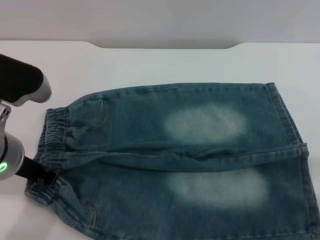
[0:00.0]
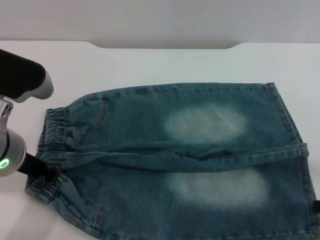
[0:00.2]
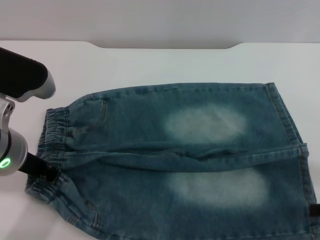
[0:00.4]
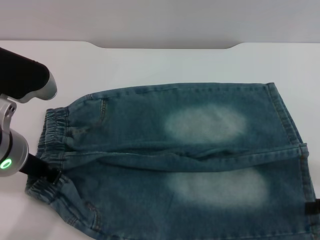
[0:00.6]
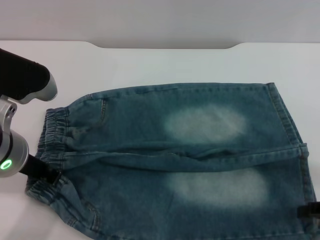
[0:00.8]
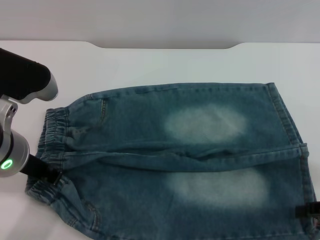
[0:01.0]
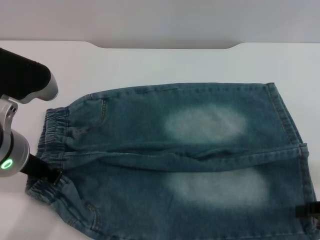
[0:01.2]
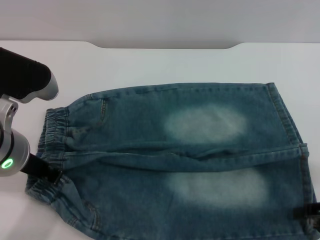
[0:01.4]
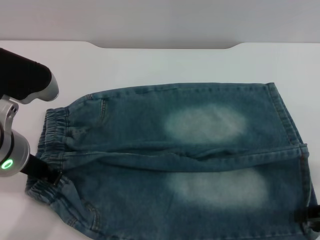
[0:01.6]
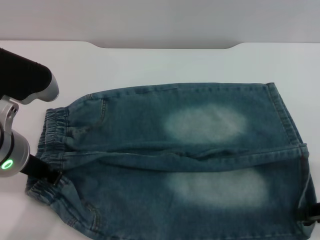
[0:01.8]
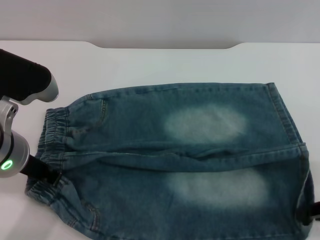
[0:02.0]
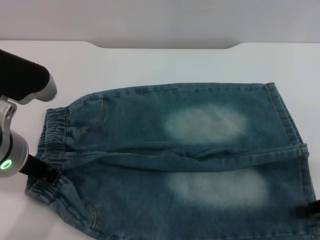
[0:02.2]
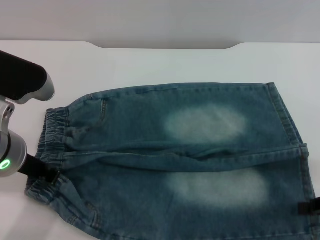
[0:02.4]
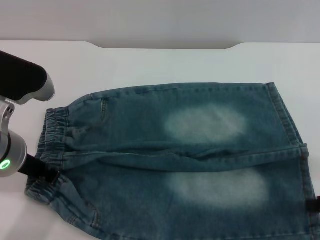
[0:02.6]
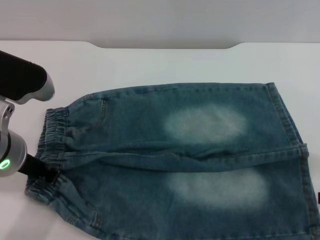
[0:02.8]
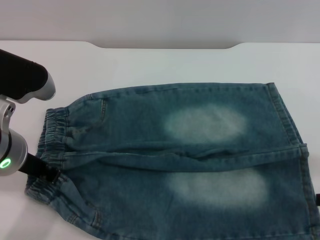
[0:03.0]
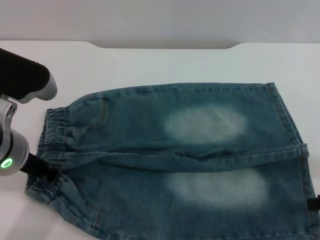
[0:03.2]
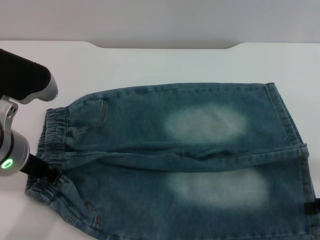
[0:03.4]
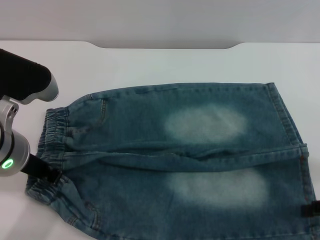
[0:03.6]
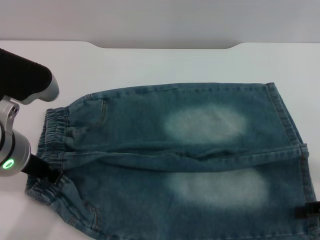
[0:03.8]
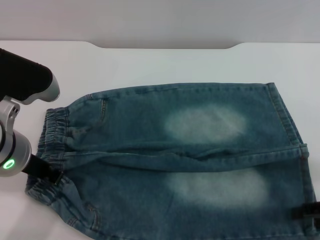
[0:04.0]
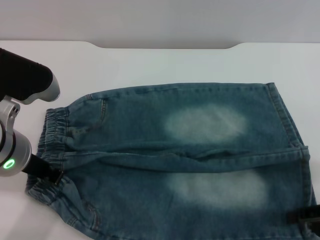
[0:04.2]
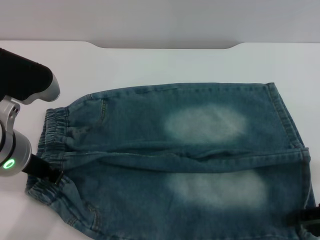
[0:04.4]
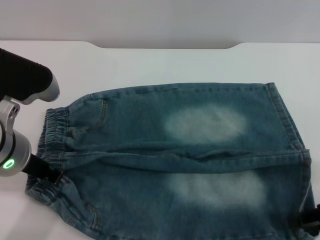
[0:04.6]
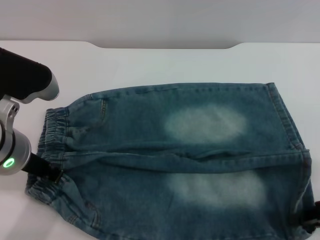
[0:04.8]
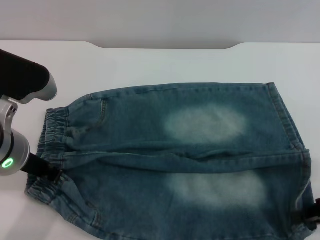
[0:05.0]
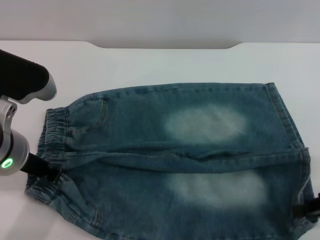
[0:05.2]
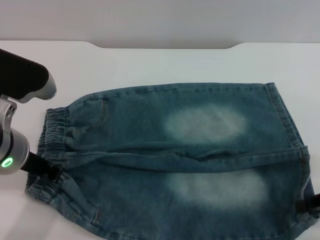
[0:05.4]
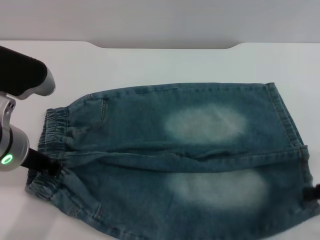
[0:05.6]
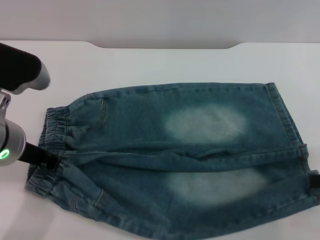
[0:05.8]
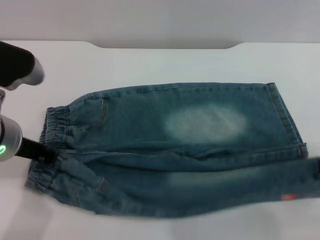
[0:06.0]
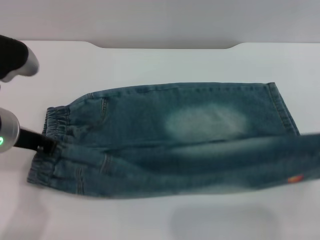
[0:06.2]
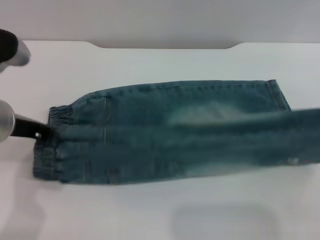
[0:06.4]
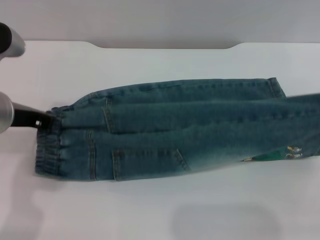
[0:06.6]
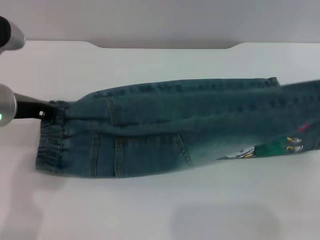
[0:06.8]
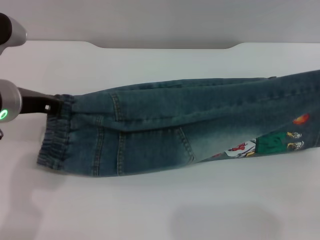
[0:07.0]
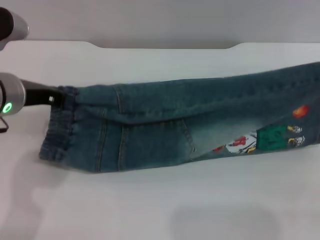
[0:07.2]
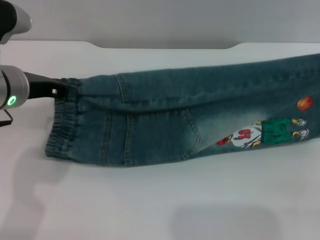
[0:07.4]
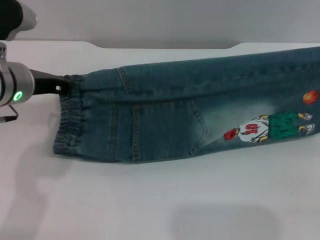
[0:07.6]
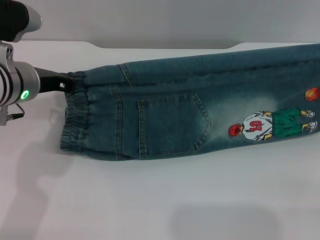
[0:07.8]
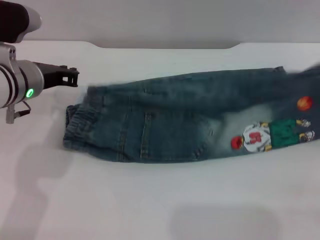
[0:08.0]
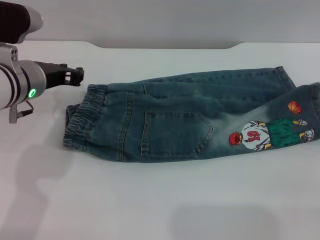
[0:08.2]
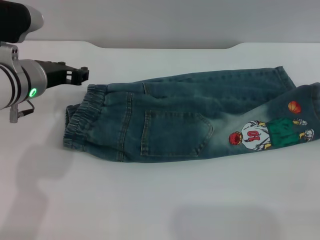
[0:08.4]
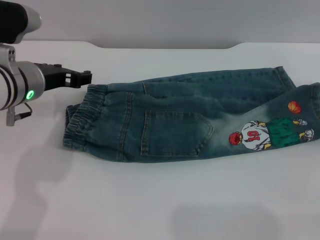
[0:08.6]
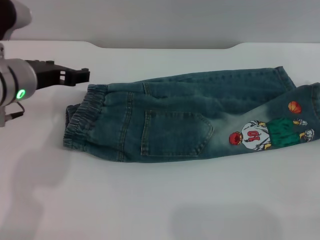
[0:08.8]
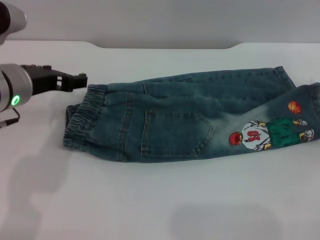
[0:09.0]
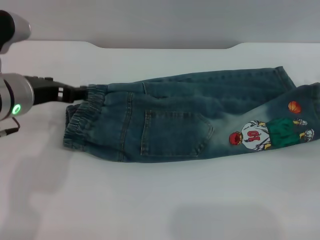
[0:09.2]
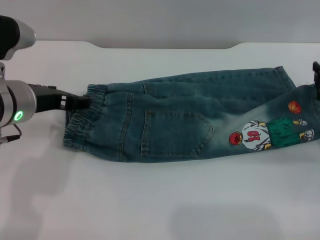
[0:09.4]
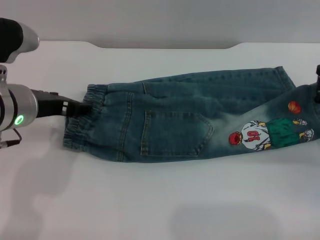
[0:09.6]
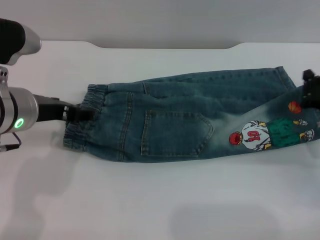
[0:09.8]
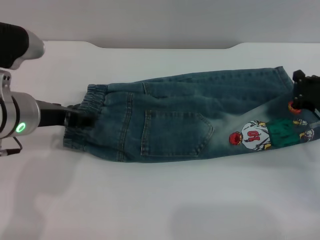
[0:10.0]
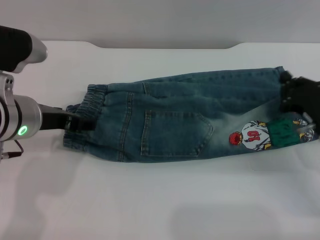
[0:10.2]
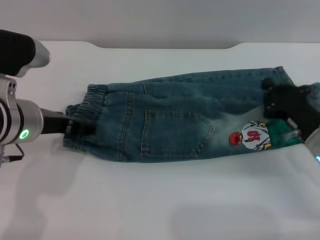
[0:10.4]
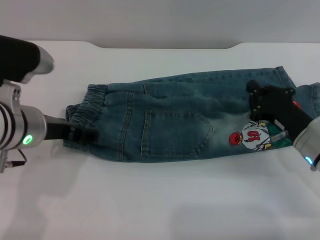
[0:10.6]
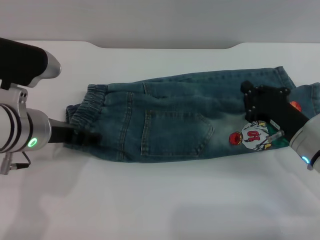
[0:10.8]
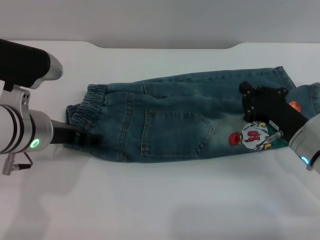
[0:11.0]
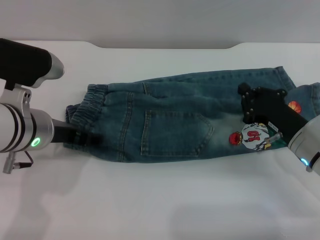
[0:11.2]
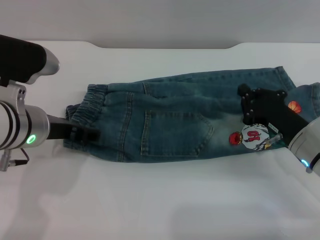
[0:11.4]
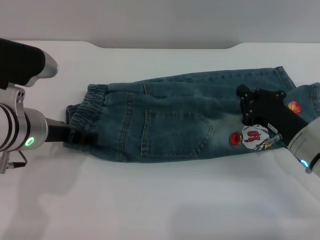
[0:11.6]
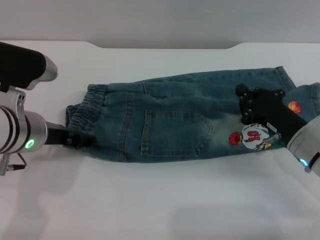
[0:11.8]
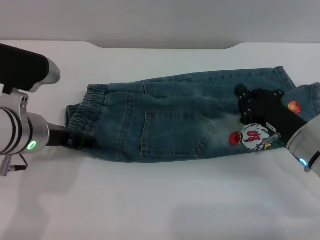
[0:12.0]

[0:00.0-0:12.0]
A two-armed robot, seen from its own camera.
Step, 0:00.0 to 0:08.4: Fold the bottom of the pants upward with both grippers.
0:00.0 to 0:01.6: The grippers move only a little.
0:01.6 to 0:03.0: The right gripper closes its fingers.
0:03.0 to 0:04.4: The right gripper opens.
0:04.4 to 0:06.0: The right gripper goes about 5 cm upward, and closes.
0:06.0 to 0:07.6: Both grippers move forward, roughly 5 cm.
0:07.6 to 0:09.0: The right gripper shifts about 5 cm downward, and opens its fingers. The left gripper opens its fingers.
0:09.0 to 0:10.4: The right gripper heads to the left and downward, covering some 15 cm, and closes up.
0:10.4 to 0:12.0: The grippers stay close to where they were, moving slightly.

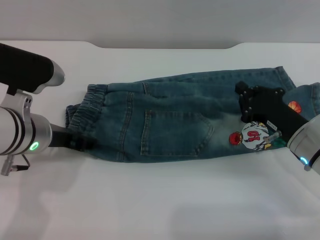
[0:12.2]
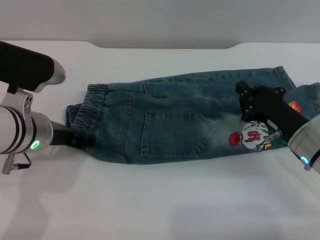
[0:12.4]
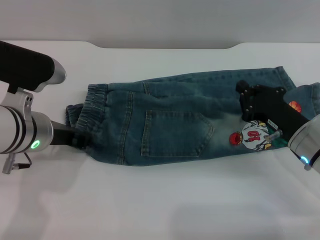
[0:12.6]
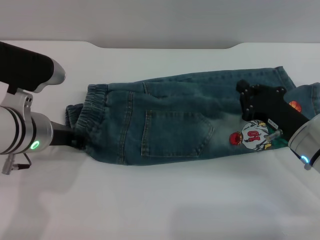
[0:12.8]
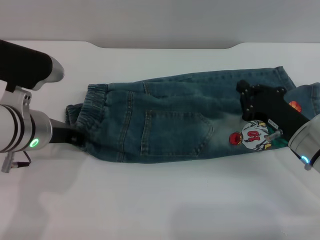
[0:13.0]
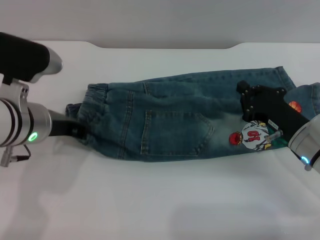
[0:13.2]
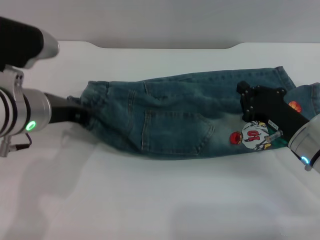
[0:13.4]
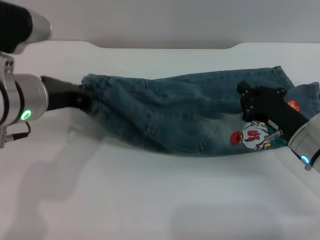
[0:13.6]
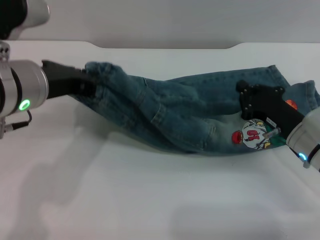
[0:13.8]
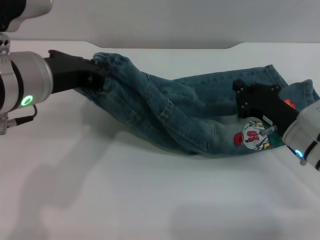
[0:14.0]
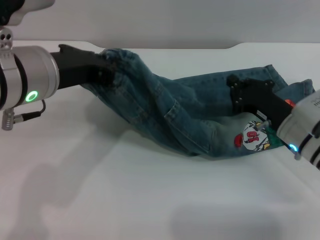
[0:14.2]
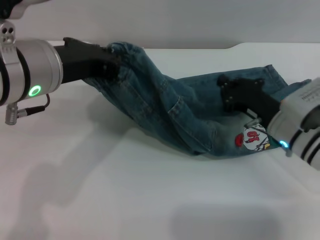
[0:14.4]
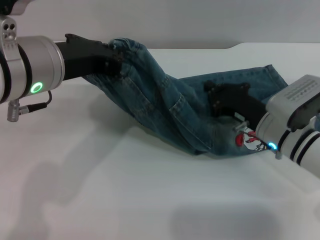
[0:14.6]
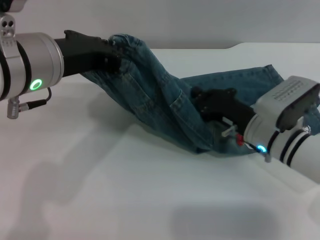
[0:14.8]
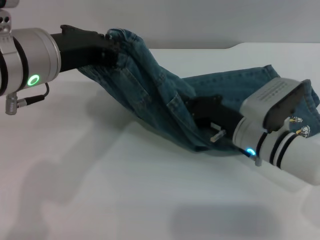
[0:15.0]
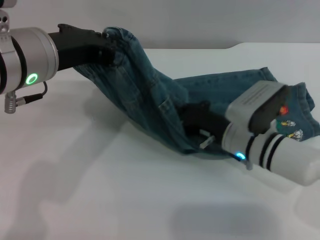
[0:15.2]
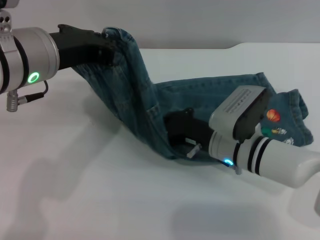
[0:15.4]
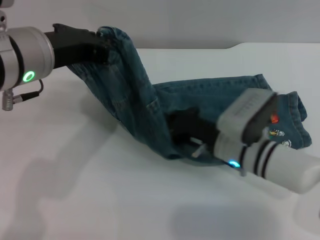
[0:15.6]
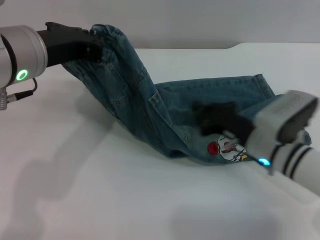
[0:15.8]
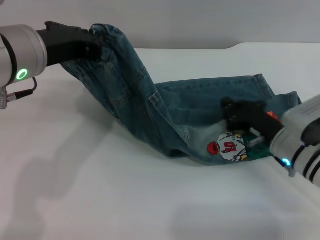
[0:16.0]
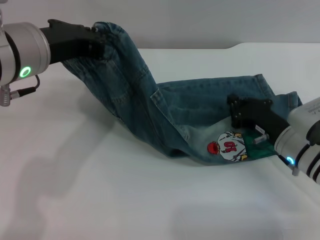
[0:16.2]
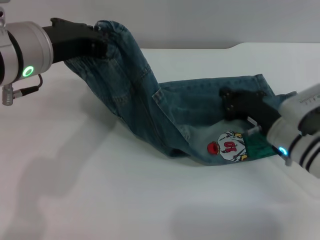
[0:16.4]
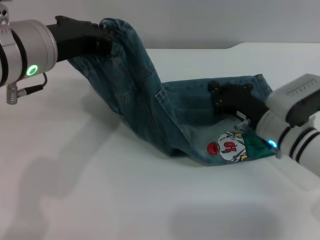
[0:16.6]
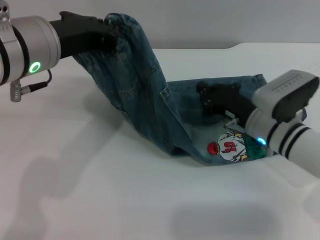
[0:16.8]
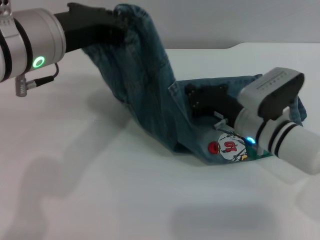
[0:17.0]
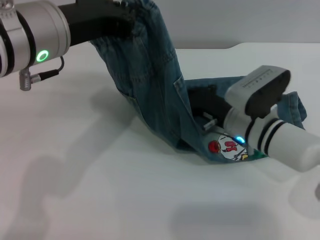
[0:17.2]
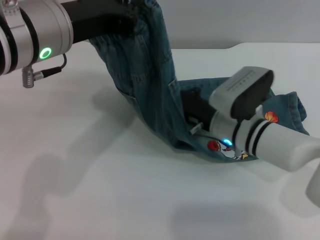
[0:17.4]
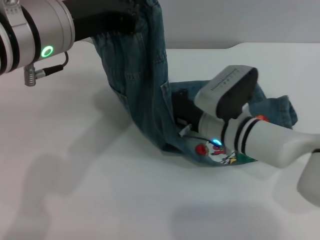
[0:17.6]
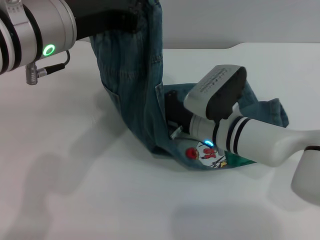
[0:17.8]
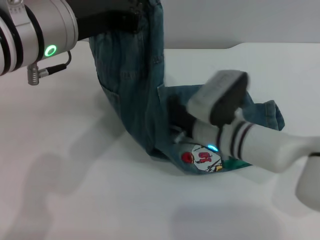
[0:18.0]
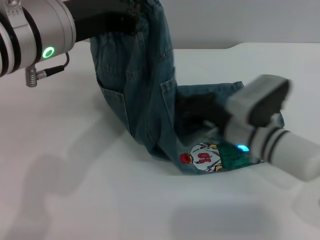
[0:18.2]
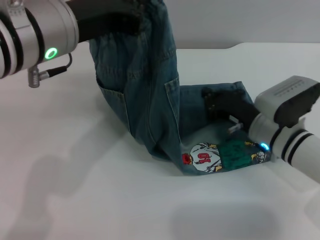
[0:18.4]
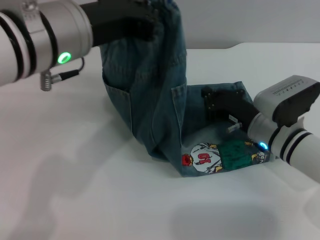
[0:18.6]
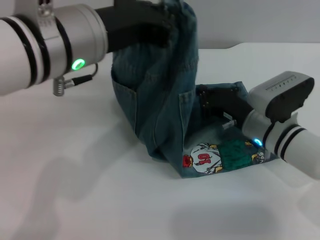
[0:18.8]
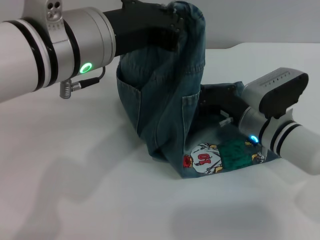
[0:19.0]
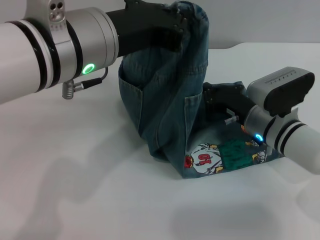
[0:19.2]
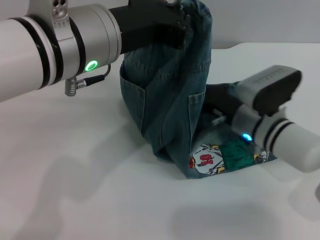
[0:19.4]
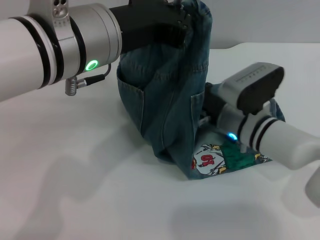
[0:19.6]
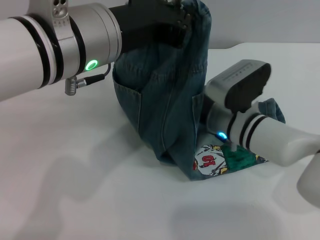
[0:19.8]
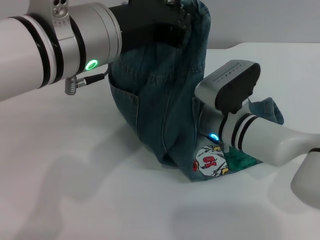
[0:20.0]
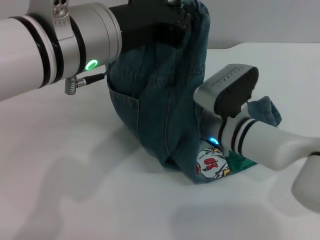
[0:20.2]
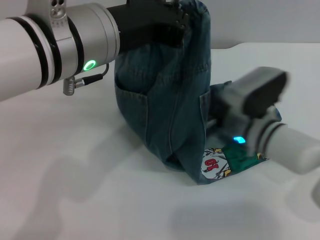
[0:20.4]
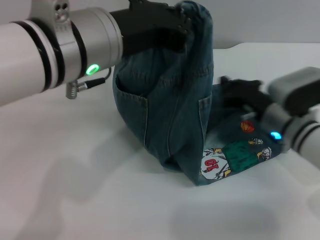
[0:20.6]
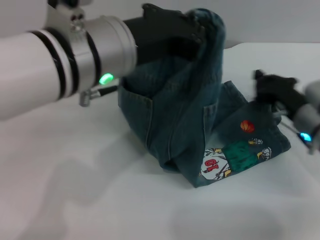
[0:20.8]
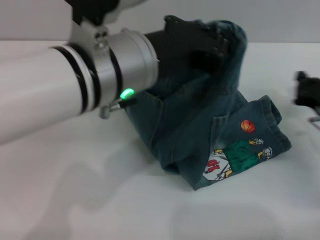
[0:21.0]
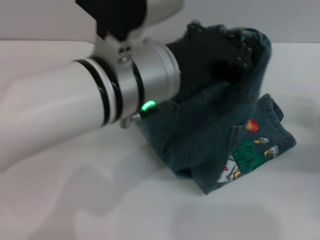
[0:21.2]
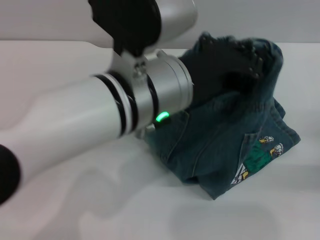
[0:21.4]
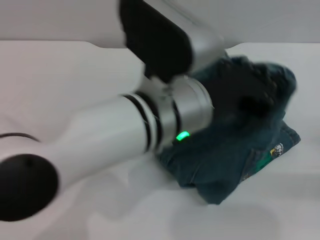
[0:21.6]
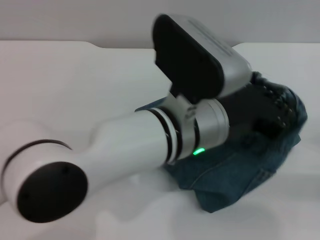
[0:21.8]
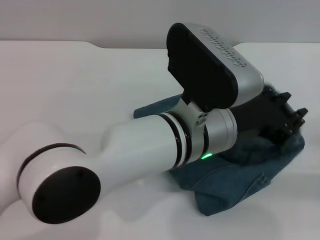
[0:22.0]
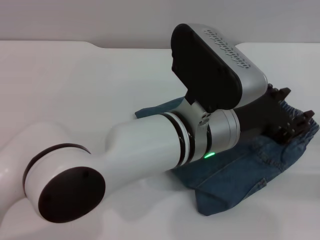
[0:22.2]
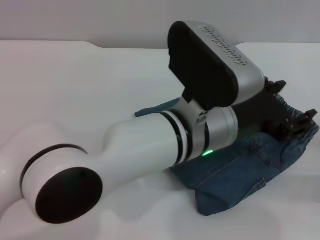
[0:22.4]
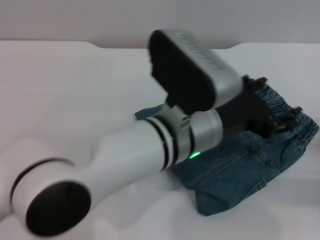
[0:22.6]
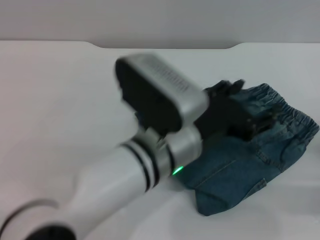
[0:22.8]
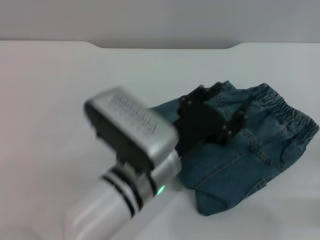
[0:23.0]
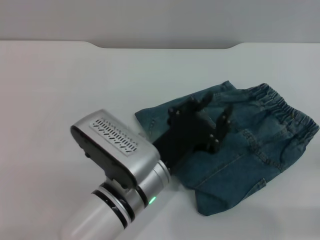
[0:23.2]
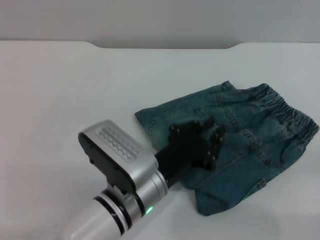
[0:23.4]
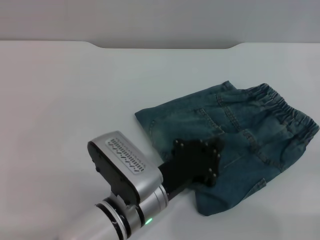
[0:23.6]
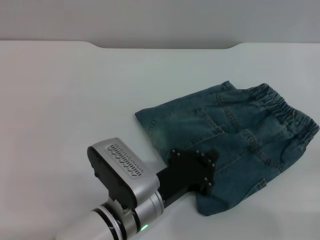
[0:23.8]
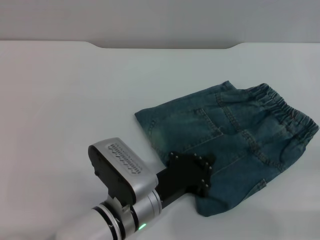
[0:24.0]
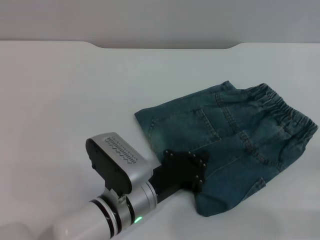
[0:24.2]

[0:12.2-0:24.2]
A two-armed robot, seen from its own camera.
Step, 0:12.2 to 0:22.6: Fold the pants from left to right with the left gripper.
0:12.2 to 0:13.8: The left gripper is displaced upward by some 10 cm, and closes its fingers.
0:13.8 to 0:15.2: The right gripper goes about 10 cm to the left.
0:15.2 to 0:16.6: The right gripper goes some 5 cm to the right.
0:19.8 to 0:21.2: The right gripper is displaced to the right by approximately 25 cm. Meanwhile the left gripper changes place by some 5 cm.
0:21.2 to 0:22.6: The right gripper heads backward, covering approximately 5 cm. Meanwhile the left gripper goes about 10 cm downward, and opens its fingers.
0:22.6 to 0:24.2: The left gripper travels downward and to the left by about 15 cm, and closes its fingers. Meanwhile the right gripper travels backward by about 5 cm.
